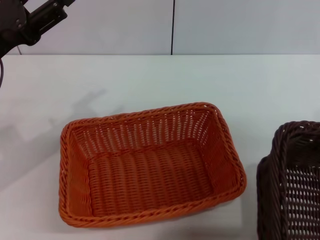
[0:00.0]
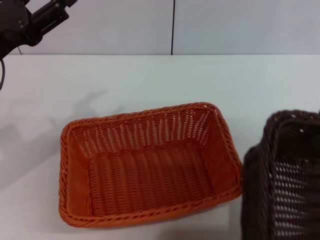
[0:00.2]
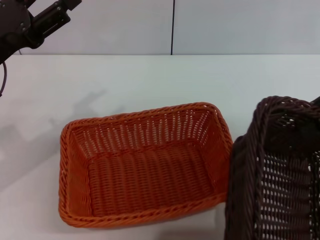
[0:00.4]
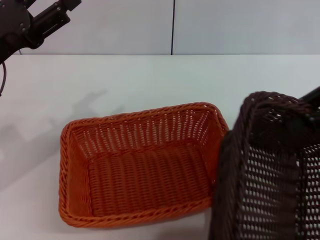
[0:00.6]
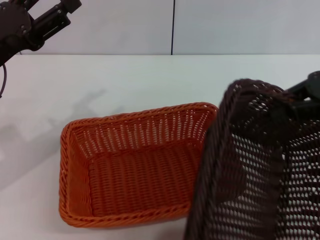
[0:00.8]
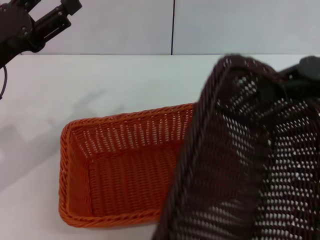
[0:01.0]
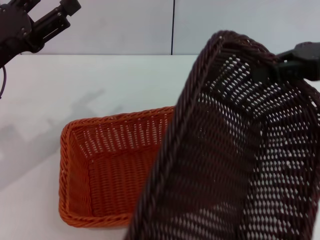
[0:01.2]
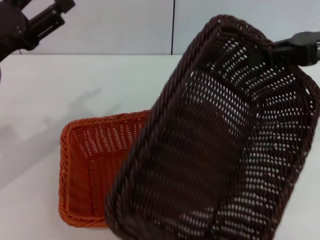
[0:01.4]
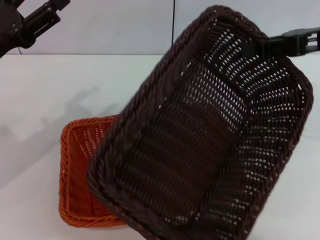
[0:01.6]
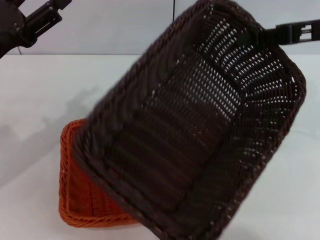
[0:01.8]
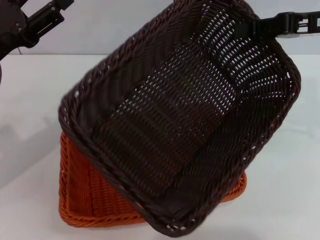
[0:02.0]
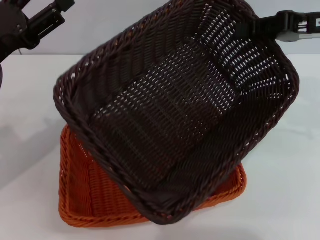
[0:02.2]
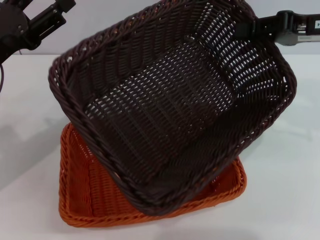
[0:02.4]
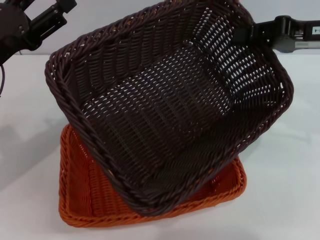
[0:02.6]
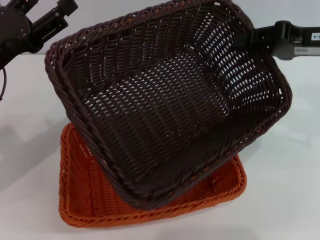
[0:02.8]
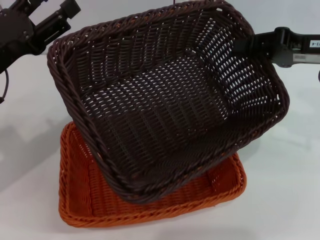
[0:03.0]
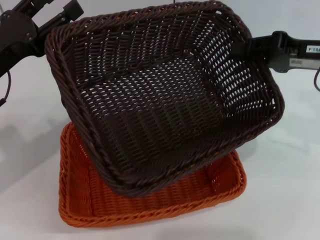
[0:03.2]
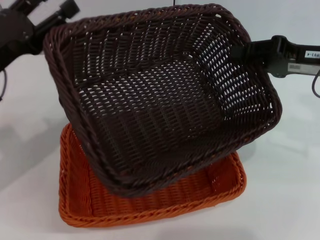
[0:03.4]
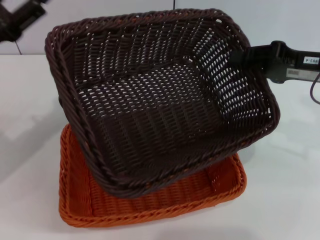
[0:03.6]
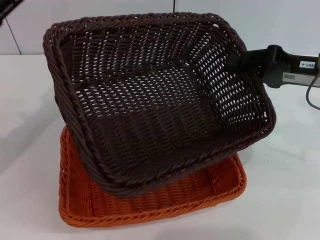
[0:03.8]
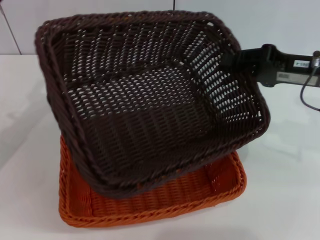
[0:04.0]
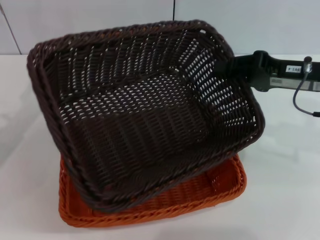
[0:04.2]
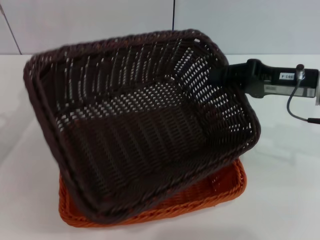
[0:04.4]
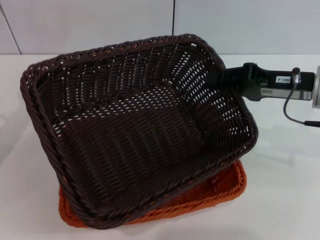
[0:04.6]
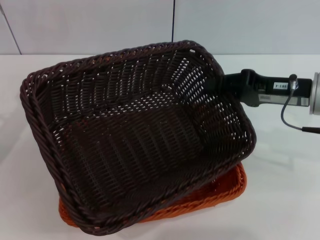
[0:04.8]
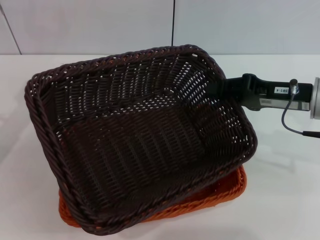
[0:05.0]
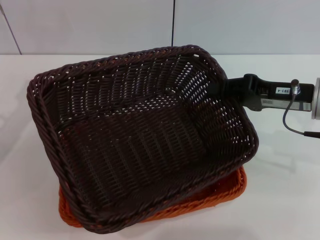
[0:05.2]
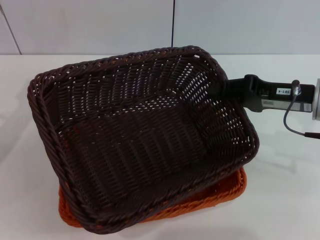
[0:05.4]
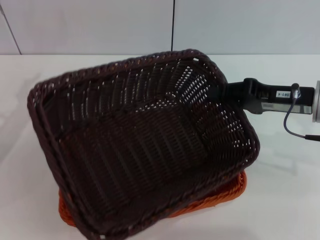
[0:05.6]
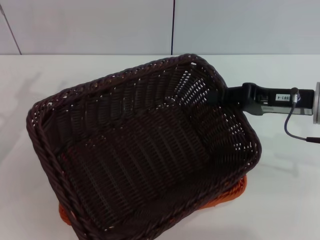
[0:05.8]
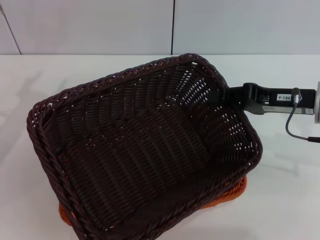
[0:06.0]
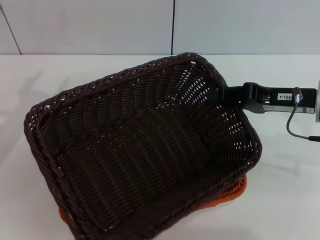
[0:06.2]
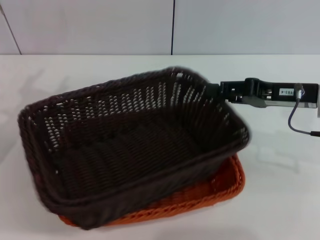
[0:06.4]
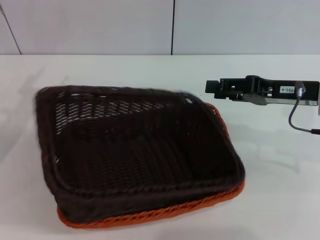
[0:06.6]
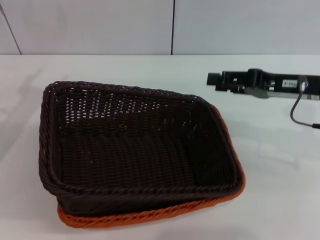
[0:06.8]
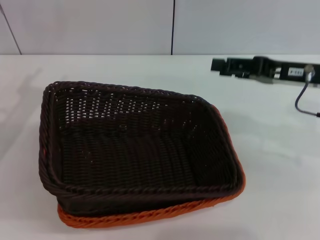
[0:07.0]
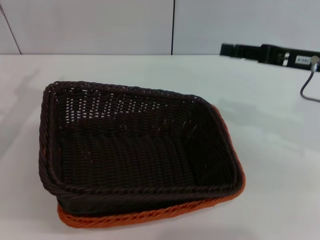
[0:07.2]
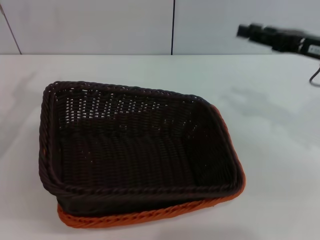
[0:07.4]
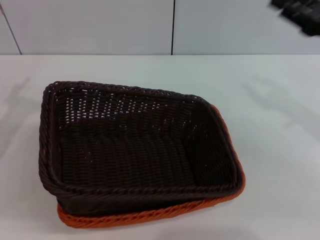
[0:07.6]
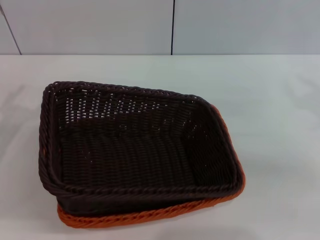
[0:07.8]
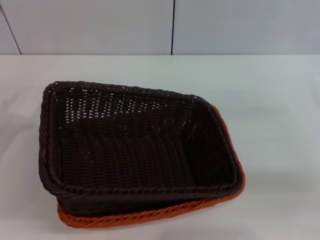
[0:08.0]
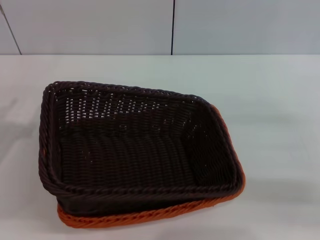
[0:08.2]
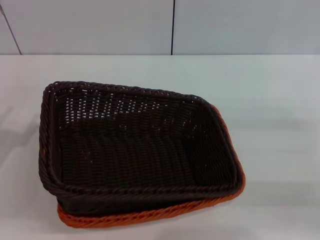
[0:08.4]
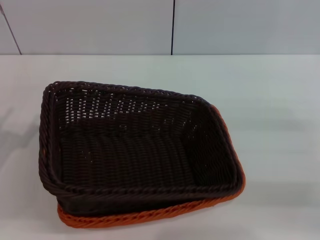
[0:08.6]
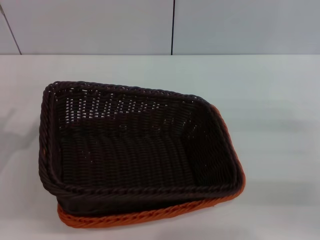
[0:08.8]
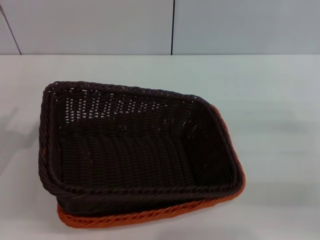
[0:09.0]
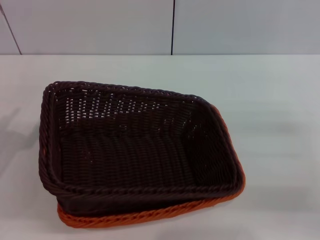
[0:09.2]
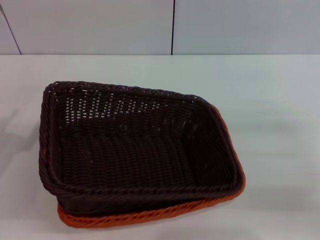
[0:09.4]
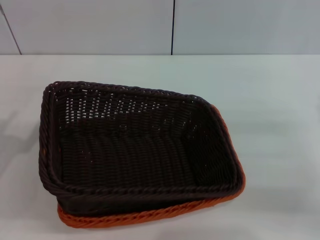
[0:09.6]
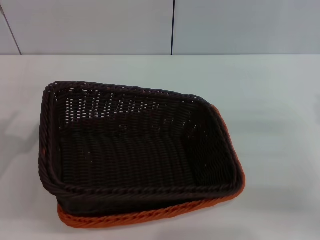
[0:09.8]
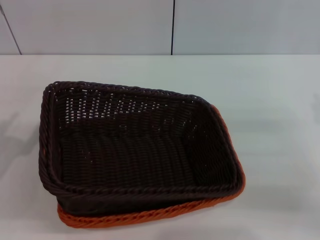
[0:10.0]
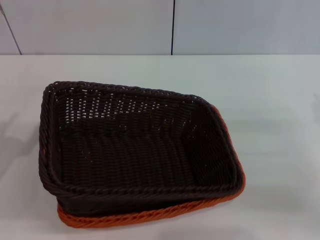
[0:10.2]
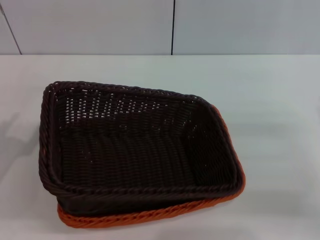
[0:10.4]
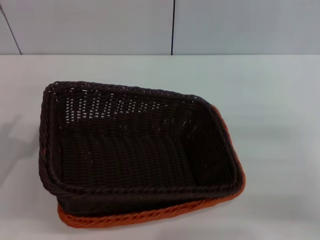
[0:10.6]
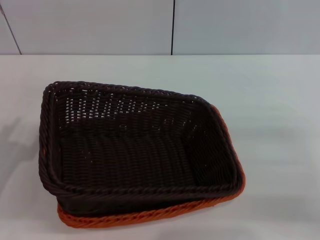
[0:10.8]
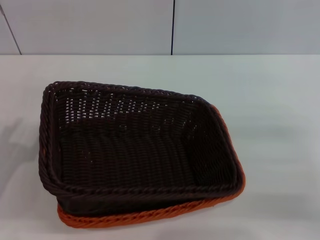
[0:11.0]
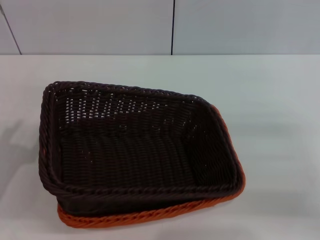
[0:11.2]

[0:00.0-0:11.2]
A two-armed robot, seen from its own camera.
Step, 0:00.0 to 0:06.6: Place the dark basket on the light basket with the right gripper.
0:00.0 to 0:01.6: The right gripper moves to the left, roughly 5 cm.
0:01.6 to 0:03.2: The right gripper moves downward, approximately 5 cm.
0:03.2 to 0:04.8: The left gripper travels to the left by approximately 5 cm. The right gripper shifts by roughly 5 cm.
0:04.8 to 0:06.4: The grippers stay close to where they were, moving slightly.
0:06.4 to 0:08.0: The right gripper moves to the right, some 10 cm, and opens up, while the left gripper shifts roughly 5 cm backward.

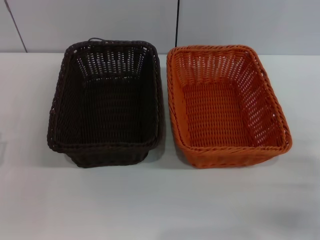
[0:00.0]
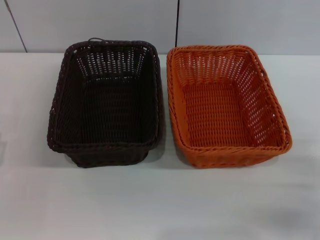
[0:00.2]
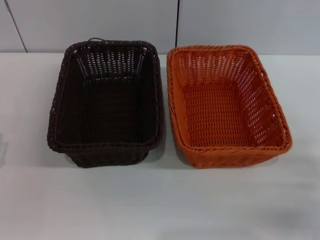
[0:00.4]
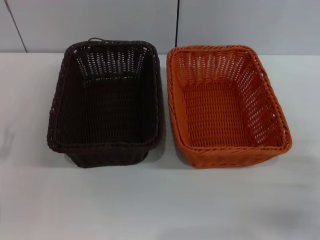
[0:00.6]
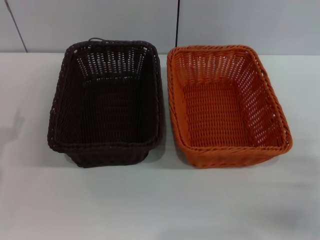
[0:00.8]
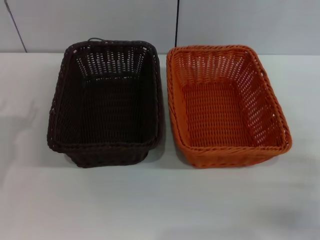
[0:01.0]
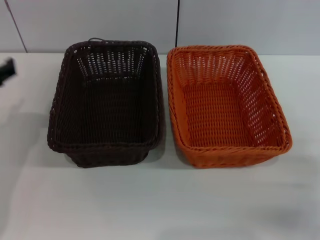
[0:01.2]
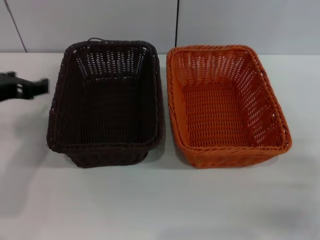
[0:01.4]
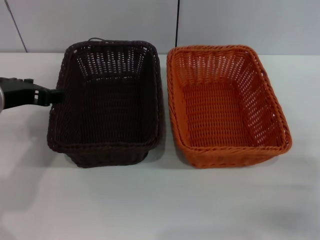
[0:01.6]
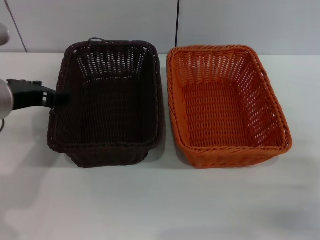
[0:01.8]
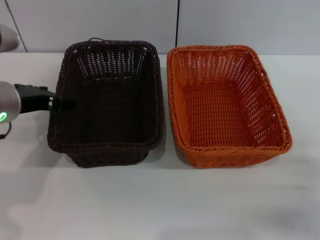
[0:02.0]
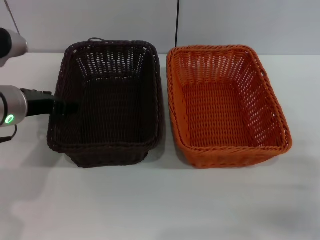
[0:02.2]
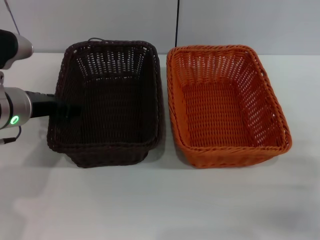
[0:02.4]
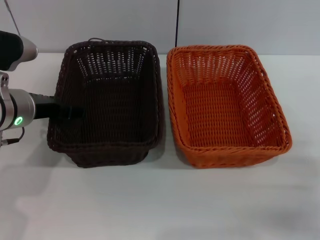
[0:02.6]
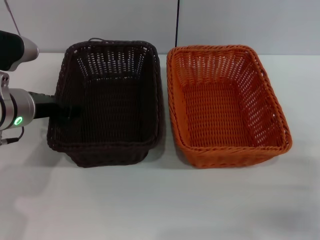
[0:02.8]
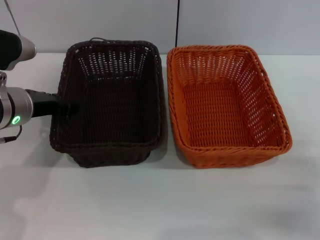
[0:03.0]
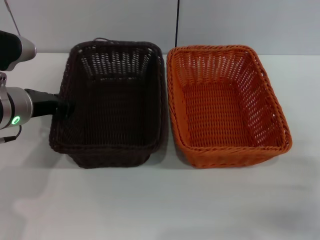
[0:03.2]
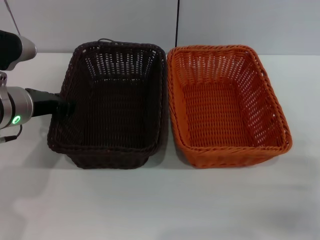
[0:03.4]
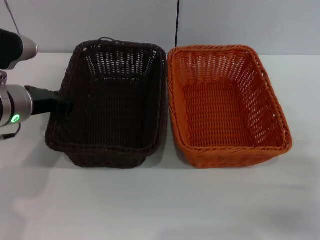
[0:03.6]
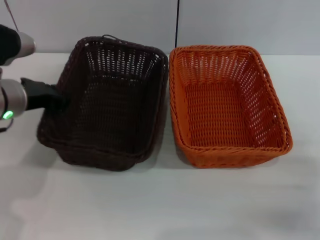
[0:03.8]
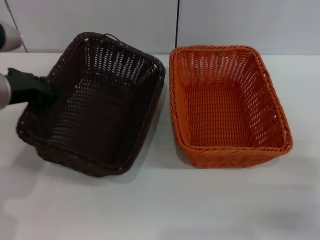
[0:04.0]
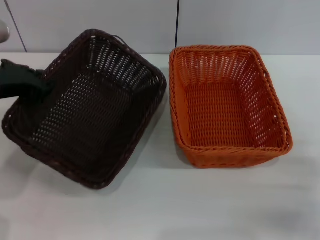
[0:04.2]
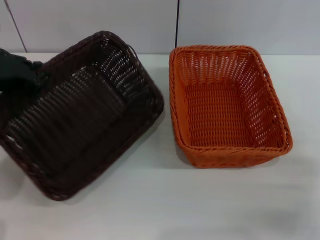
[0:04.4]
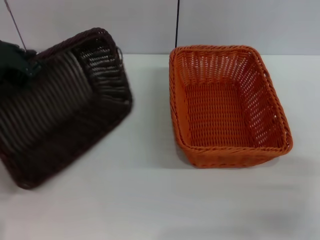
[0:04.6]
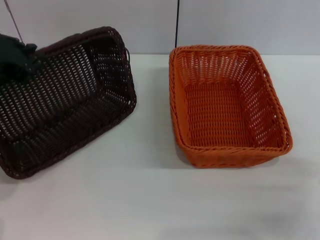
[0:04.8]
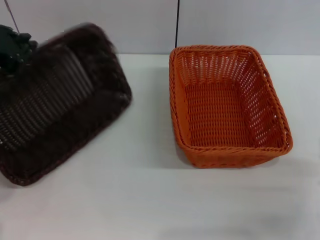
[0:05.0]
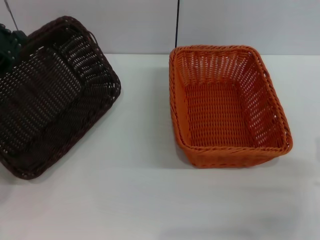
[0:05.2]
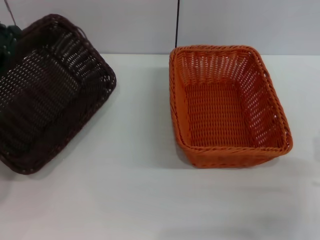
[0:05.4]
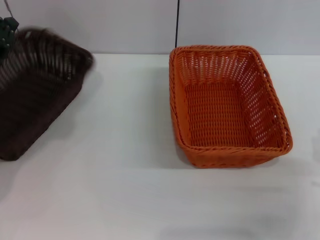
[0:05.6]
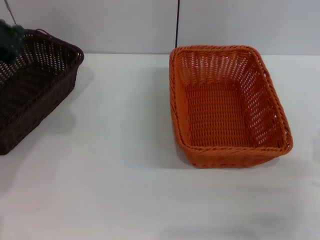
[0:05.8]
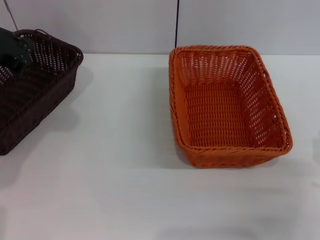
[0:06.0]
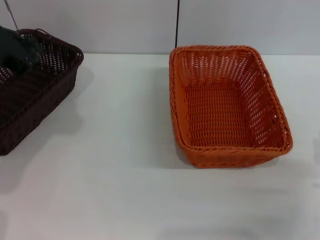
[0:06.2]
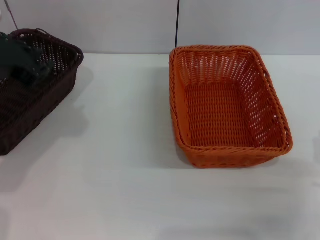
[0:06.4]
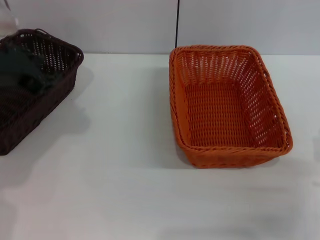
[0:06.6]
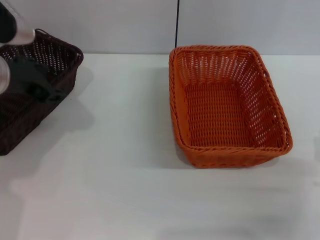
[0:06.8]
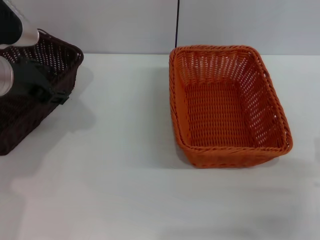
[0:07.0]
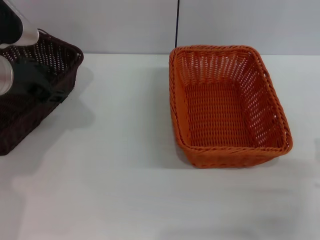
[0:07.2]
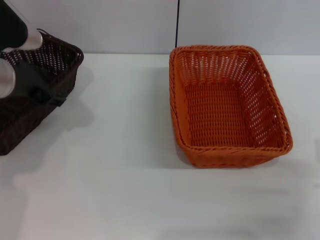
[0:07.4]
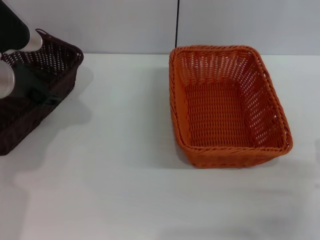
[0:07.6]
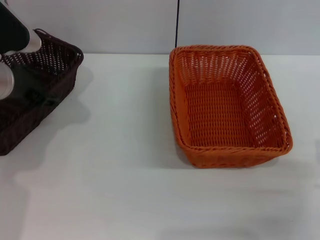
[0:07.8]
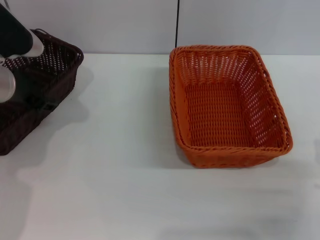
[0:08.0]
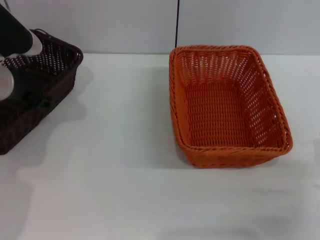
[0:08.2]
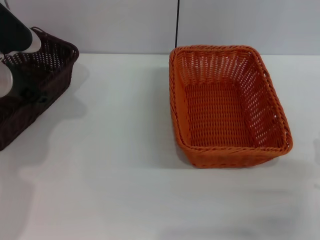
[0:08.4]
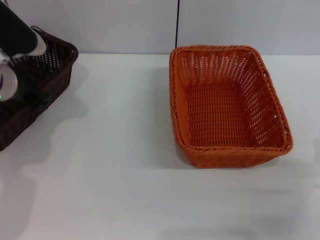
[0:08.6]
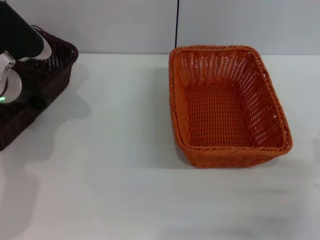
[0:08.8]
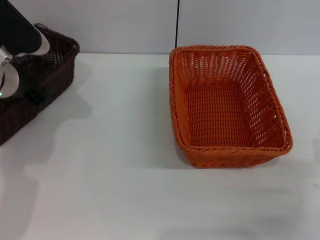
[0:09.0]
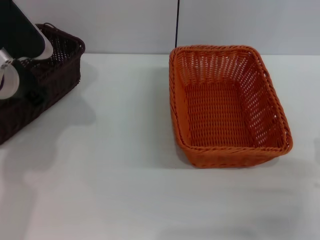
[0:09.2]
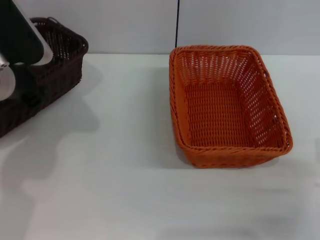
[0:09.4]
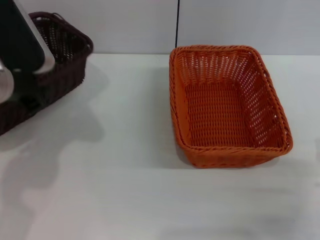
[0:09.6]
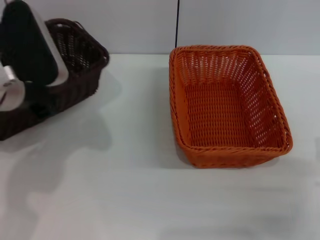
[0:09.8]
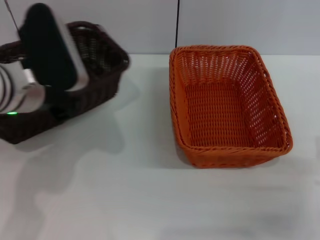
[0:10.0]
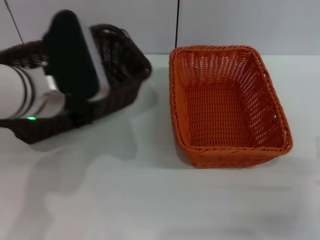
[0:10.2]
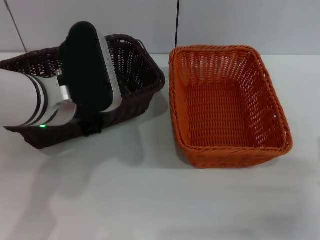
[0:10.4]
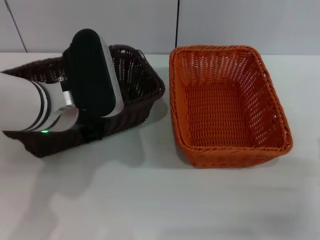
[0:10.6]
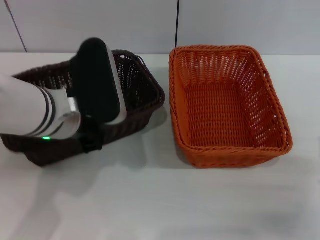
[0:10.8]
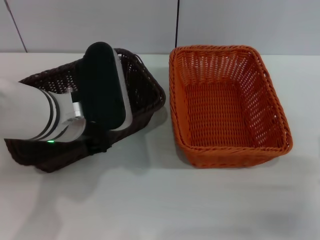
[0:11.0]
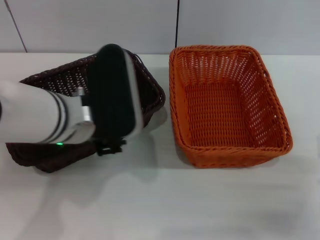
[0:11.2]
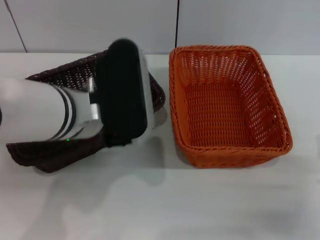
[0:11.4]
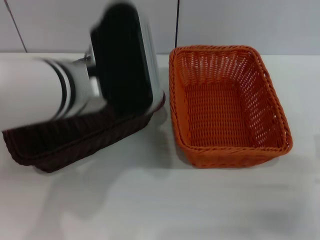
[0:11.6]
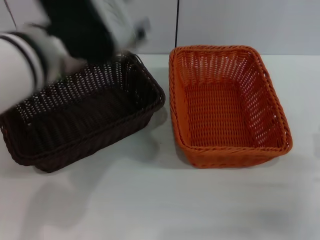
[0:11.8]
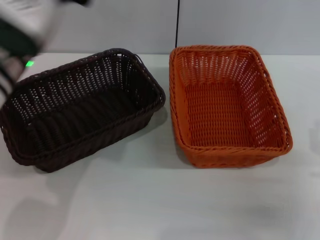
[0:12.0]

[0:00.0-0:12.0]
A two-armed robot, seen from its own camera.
Step, 0:00.0 to 0:09.0: Pick up the dark basket with the left gripper.
Step, 0:09.2 to 0:10.8: Place the dark basket in the center of view with the left gripper.
0:00.0 to 0:01.6: The left gripper moves upward, forward and to the right, roughly 20 cm.
0:01.6 to 0:03.0: The left gripper ends up roughly 5 cm from where it was.
0:03.0 to 0:04.4: The left gripper travels upward by about 5 cm, and closes.
0:06.0 to 0:07.6: The left gripper moves about 5 cm, and opens.
0:07.6 to 0:09.0: The left gripper closes.
0:09.0 to 0:10.4: The left gripper shifts some 15 cm to the right and backward.
0:10.4 to 0:12.0: The left gripper moves approximately 5 cm, and opens.
